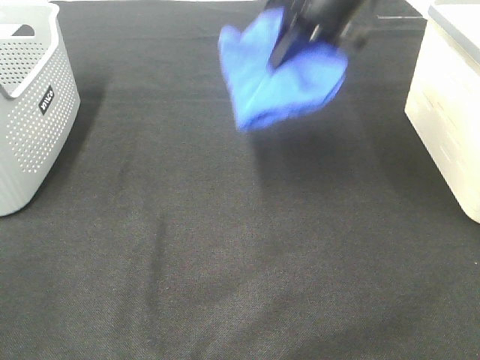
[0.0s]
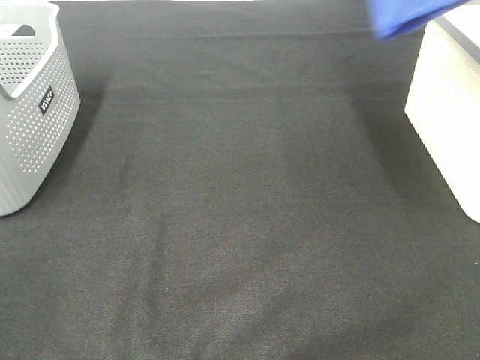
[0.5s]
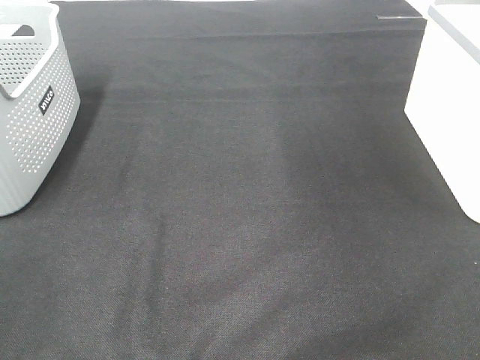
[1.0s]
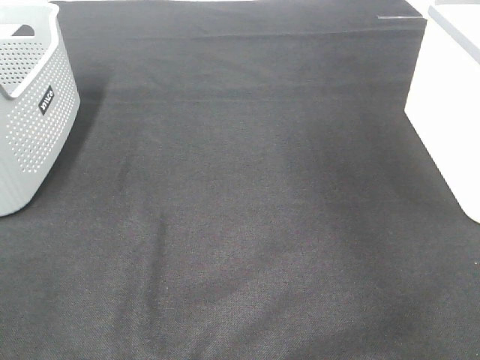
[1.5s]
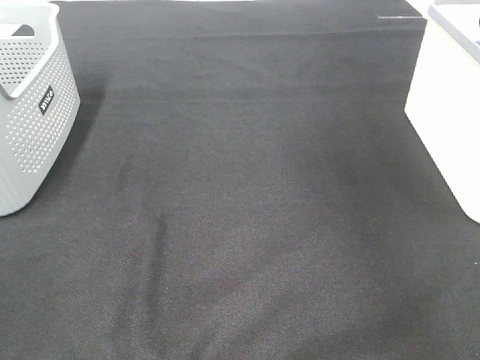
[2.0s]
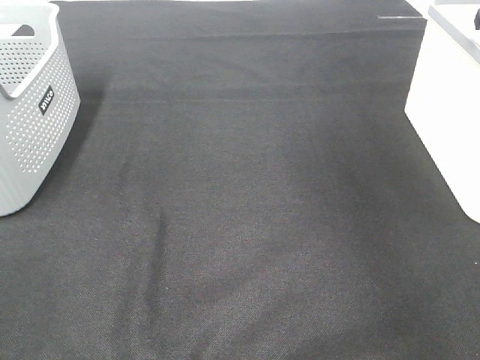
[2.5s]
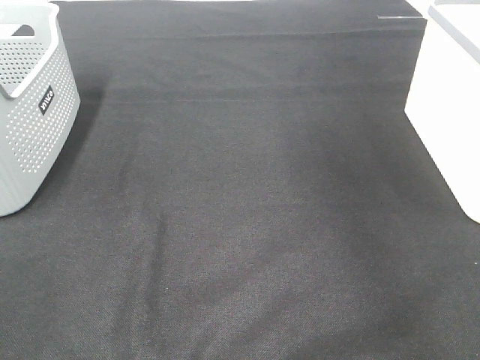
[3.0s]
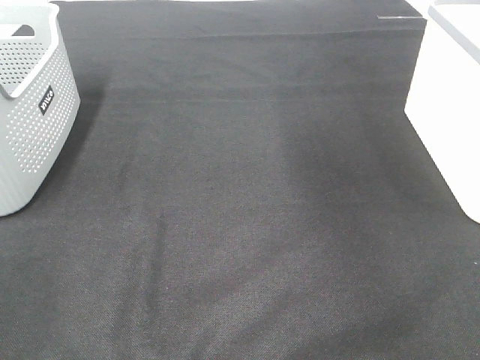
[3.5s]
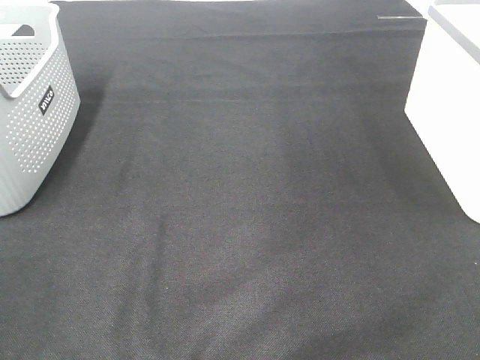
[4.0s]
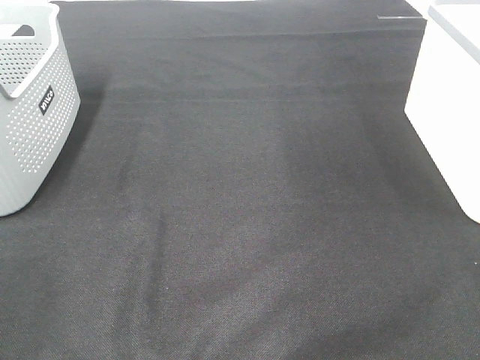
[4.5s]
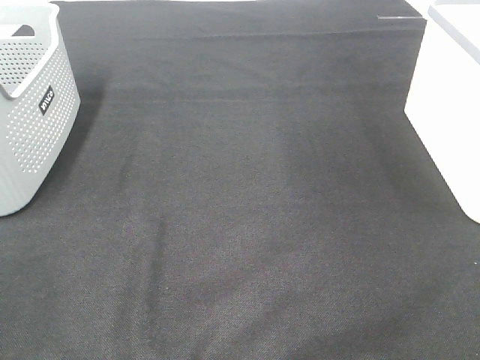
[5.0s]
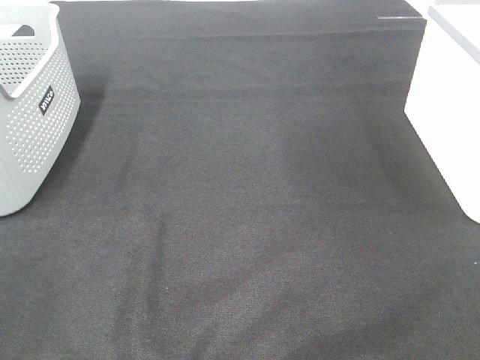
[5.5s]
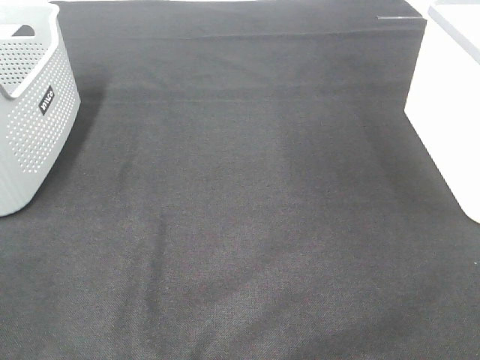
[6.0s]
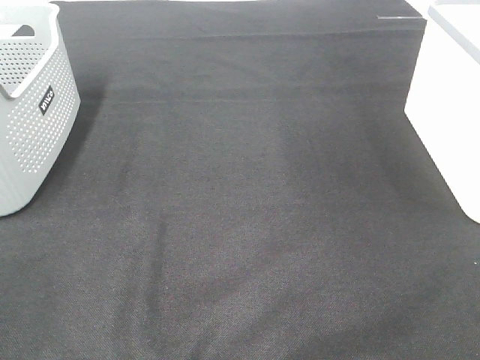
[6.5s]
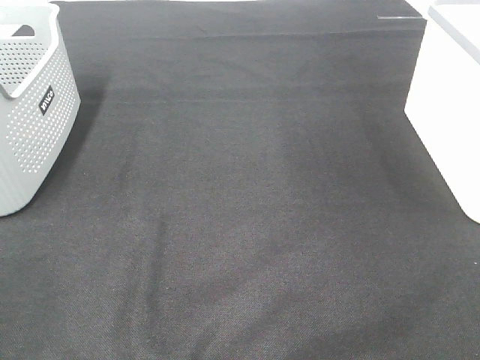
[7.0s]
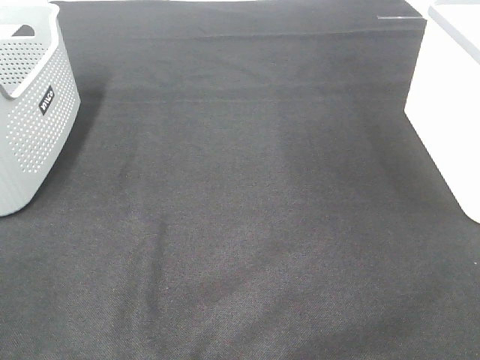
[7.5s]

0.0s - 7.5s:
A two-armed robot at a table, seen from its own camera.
Step, 0.0s - 2.0s: Right hand: place the blue towel in right basket.
0.0s - 2.0s: The right gripper is displaced to the right by approximately 25 cm.
5.5s - 7.5s: Both grippers stay put.

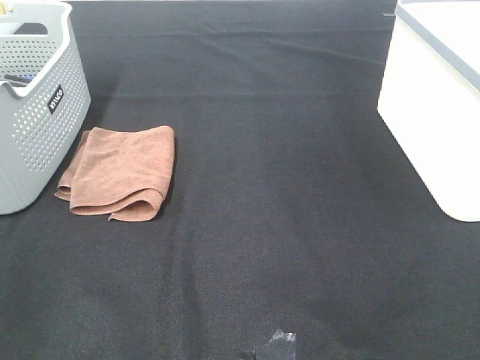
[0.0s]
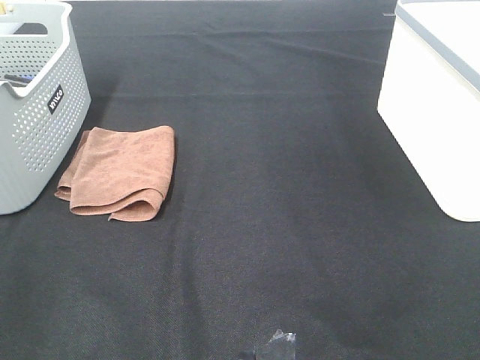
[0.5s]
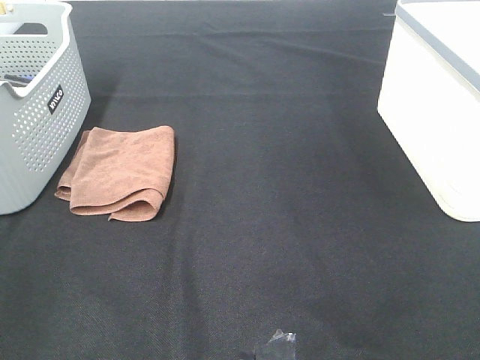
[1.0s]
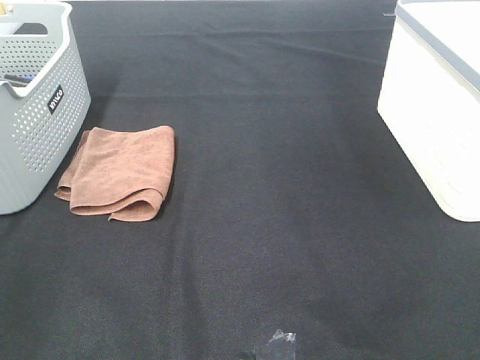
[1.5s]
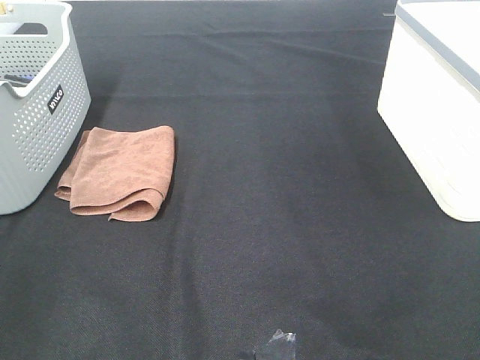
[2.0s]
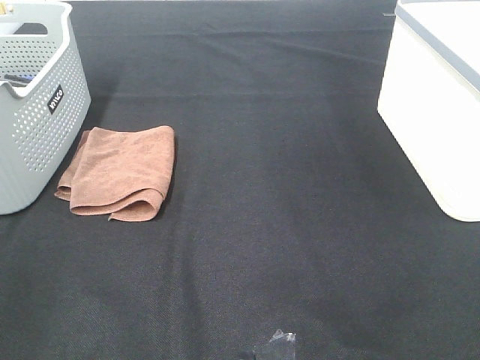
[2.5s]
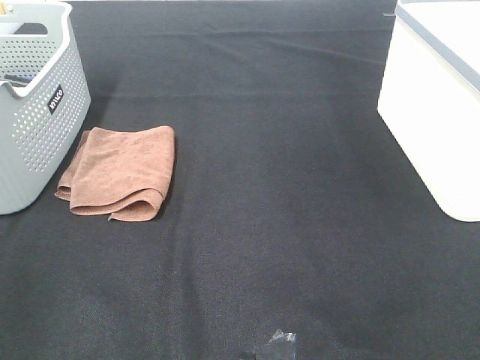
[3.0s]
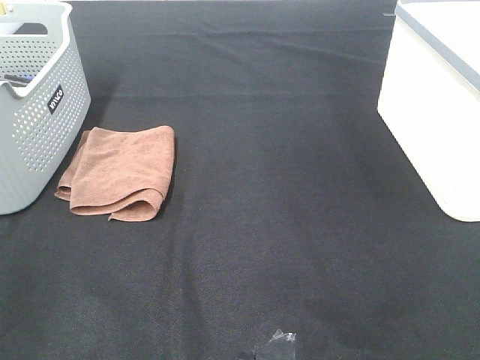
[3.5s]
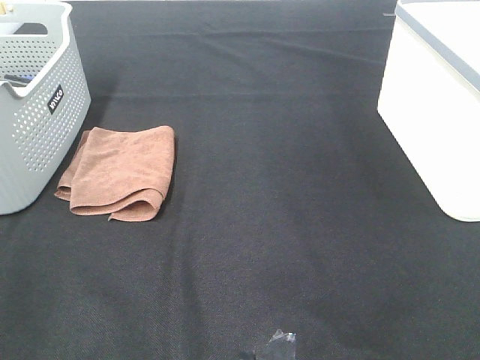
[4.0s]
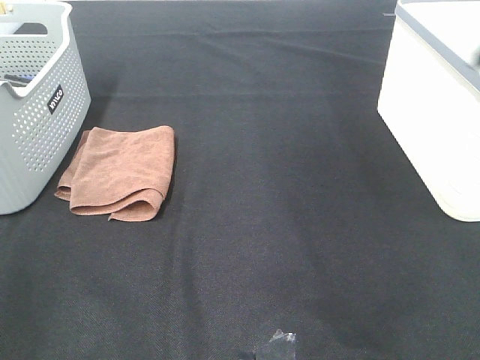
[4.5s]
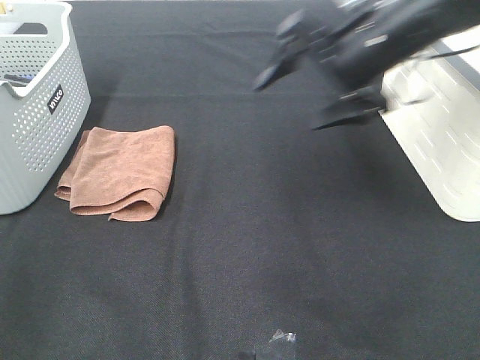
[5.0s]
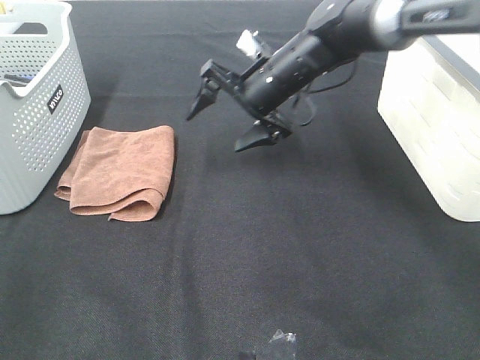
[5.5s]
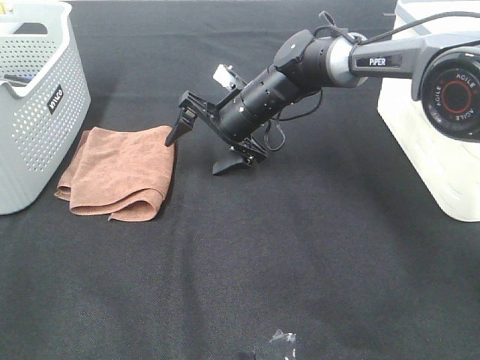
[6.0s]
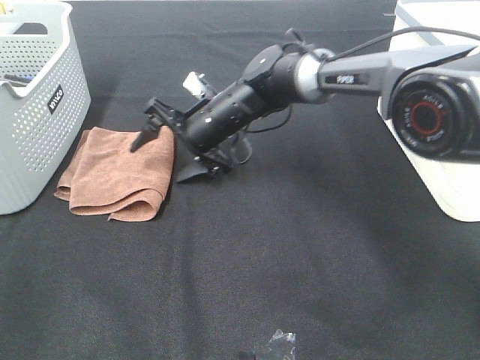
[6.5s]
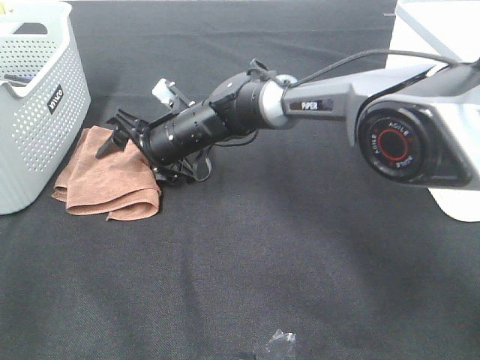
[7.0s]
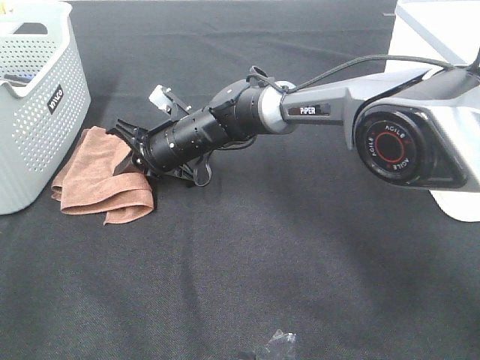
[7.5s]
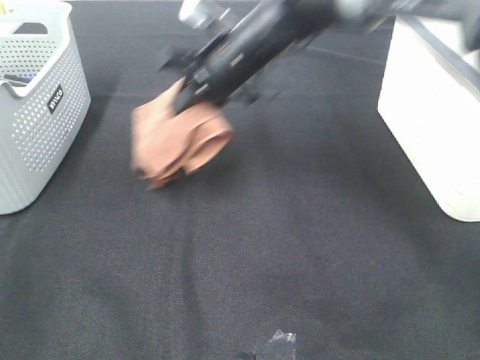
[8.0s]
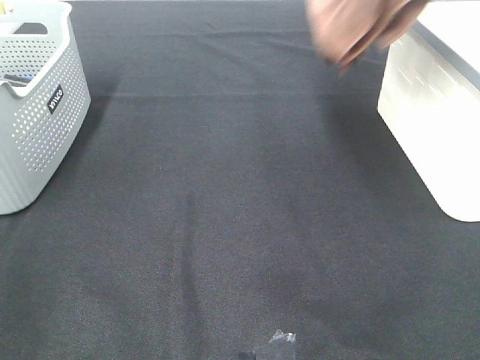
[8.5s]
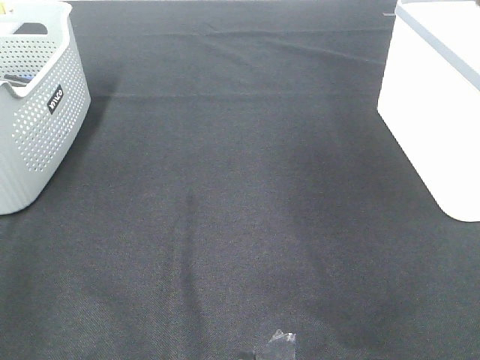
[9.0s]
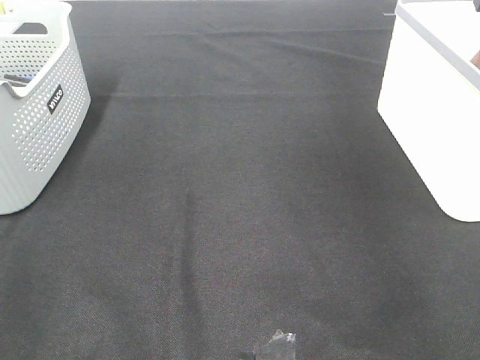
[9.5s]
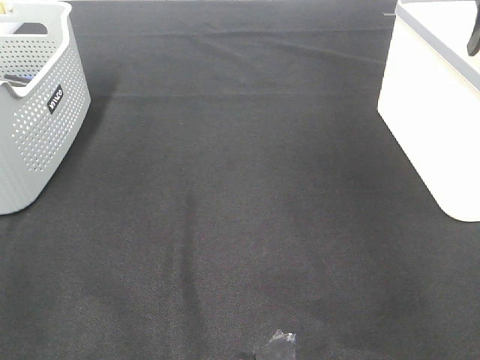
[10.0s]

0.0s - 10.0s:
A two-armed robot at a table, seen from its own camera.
Step, 0.0s - 7.0s: Right hand: grab the folded brown towel.
Step, 7.5s - 10.0s: Right hand: place the brown towel in right basket.
0.0s - 2.0s: Both grippers stay put.
4.0s - 6.0s: The right gripper shifts roughly 50 cm forward, to the left and downward.
6.0s - 8.0s: The right gripper goes roughly 10 cm upward, and closes up.
8.0s - 10.0s: The right gripper moves to the right, some 35 cm, and opens its fingers.

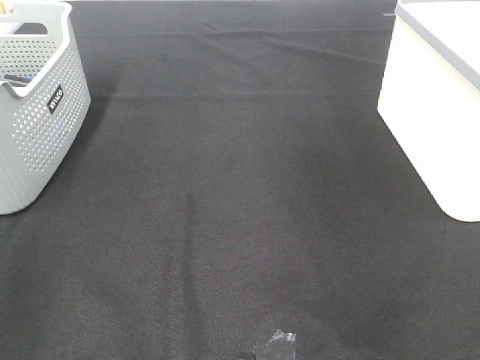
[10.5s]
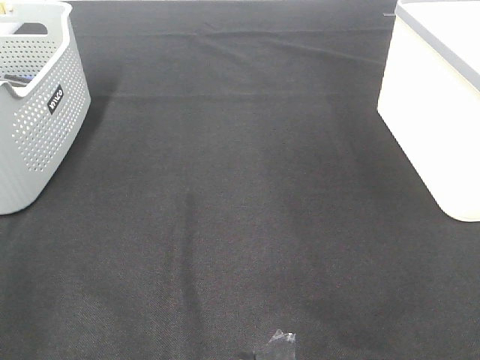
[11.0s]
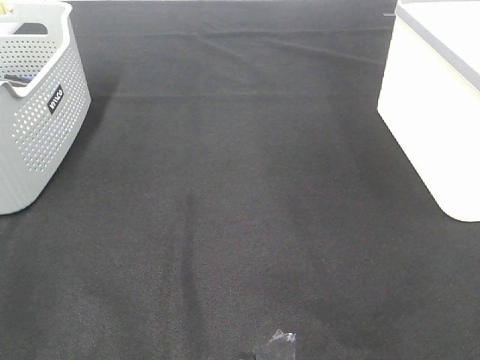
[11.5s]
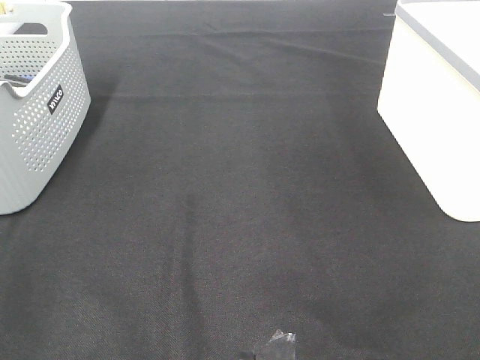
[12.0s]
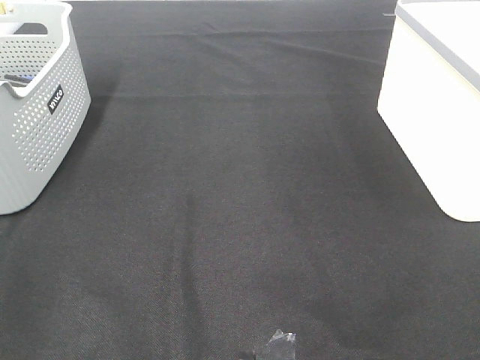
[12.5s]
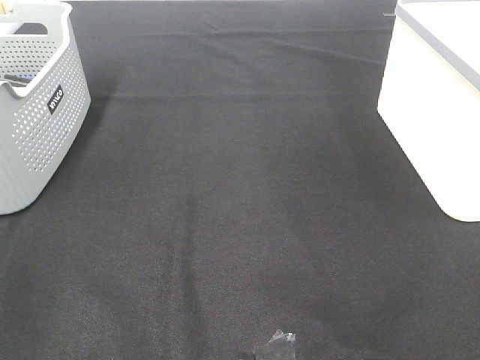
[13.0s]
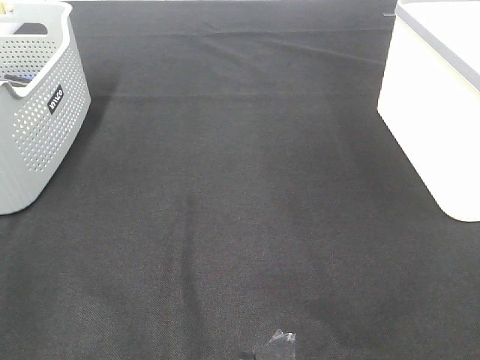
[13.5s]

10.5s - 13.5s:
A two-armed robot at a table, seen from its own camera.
12.0s - 13.5s: Both grippers stay about where they are.

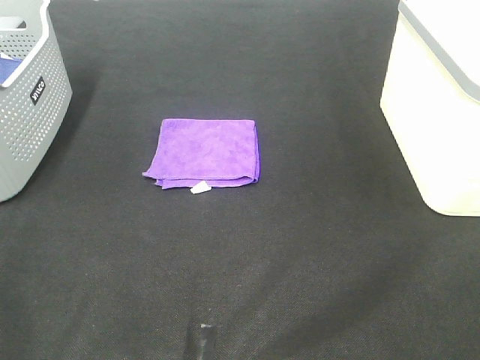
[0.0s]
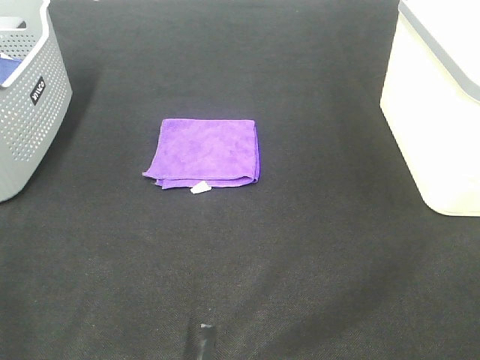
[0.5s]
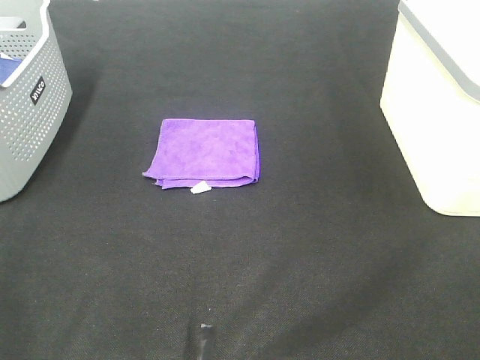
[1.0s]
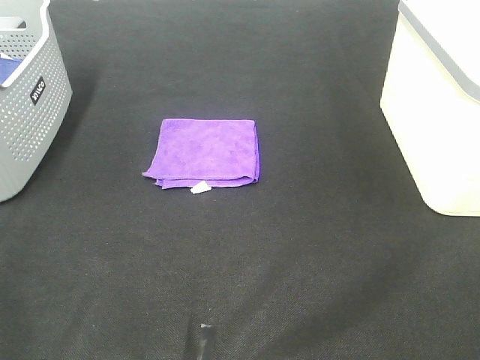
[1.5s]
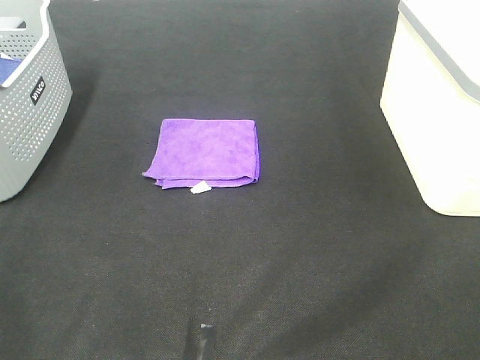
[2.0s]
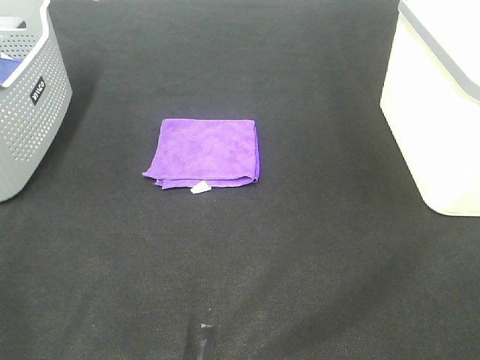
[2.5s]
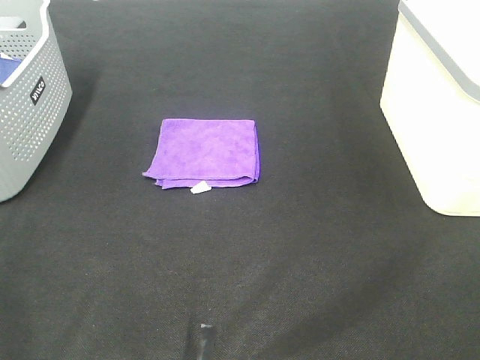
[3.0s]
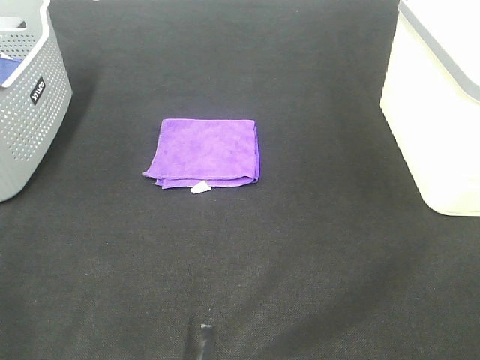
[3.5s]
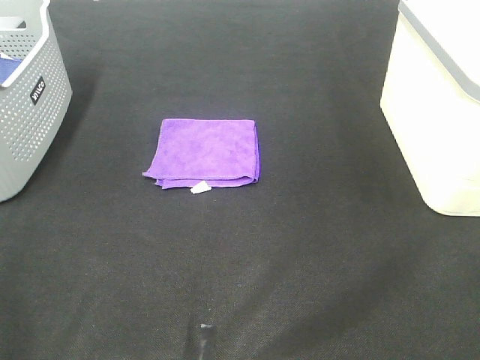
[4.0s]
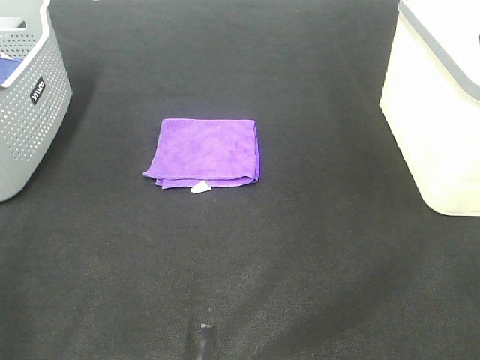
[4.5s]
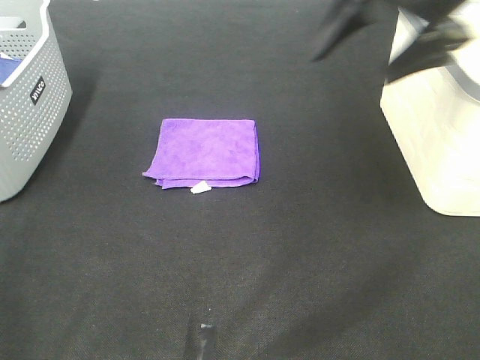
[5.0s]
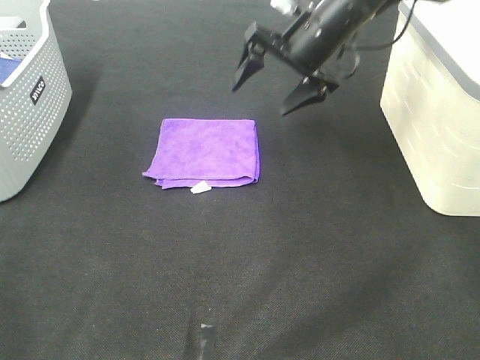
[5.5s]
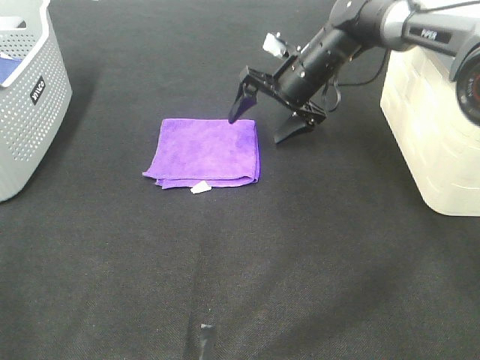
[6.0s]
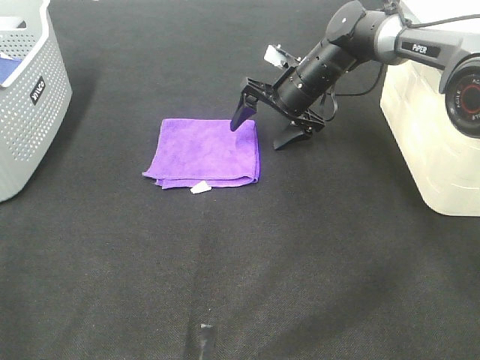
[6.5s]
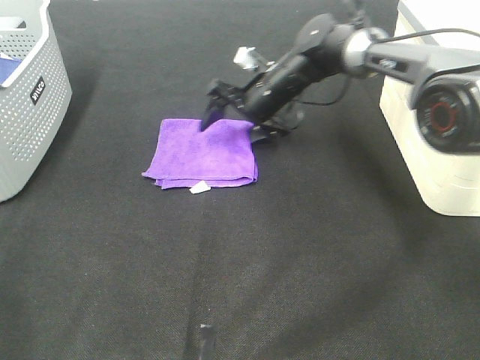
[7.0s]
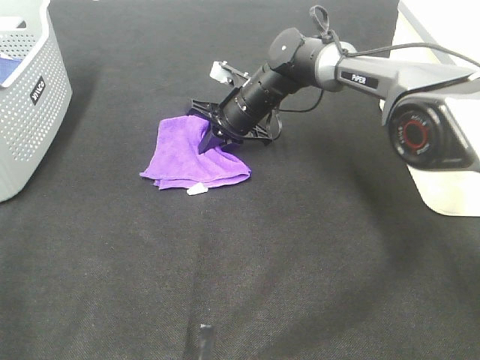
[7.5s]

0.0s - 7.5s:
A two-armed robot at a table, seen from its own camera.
Step, 0.0s - 7.5s: Right hand: grab the folded purple towel.
0.0s - 2.0s: Both grippers stay put.
4.0s - 5.5s: The right gripper travels forward, downward and to the left by roughly 40 cm.
5.5s - 7.5s: The right gripper heads downward and to the left, covering about 15 cm, and closes its fingers.
